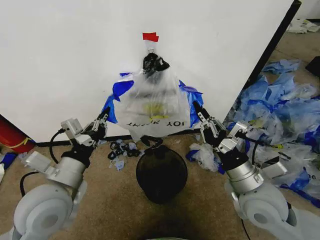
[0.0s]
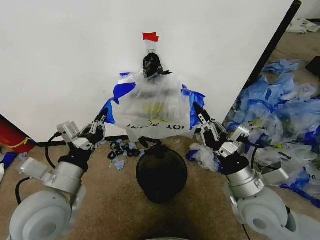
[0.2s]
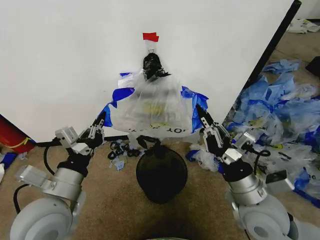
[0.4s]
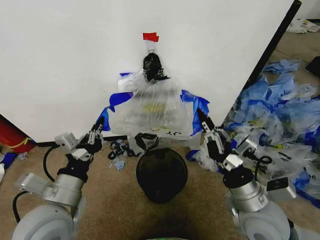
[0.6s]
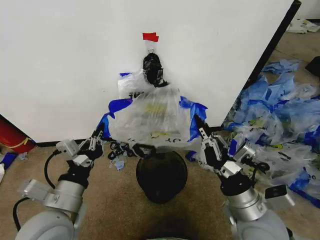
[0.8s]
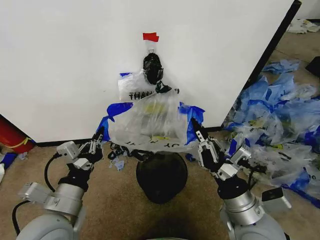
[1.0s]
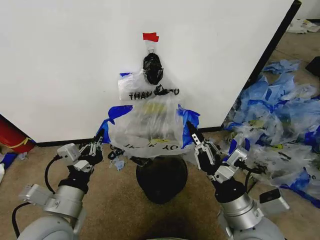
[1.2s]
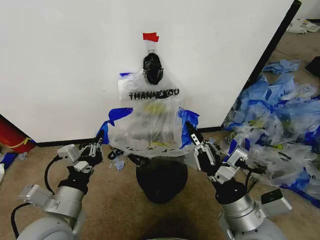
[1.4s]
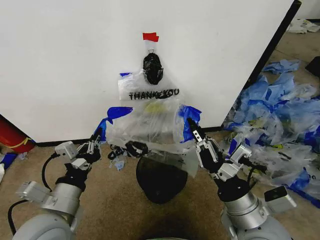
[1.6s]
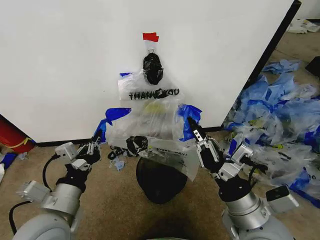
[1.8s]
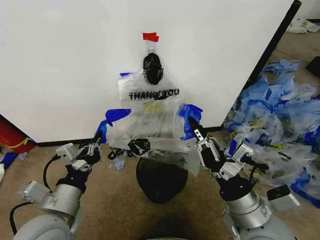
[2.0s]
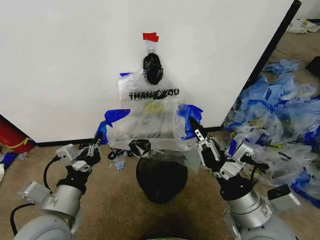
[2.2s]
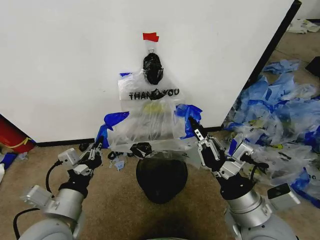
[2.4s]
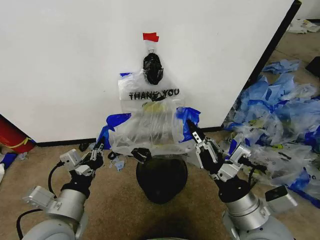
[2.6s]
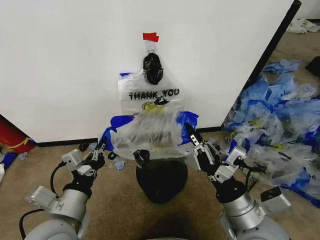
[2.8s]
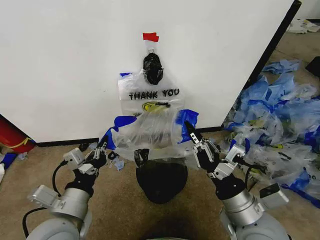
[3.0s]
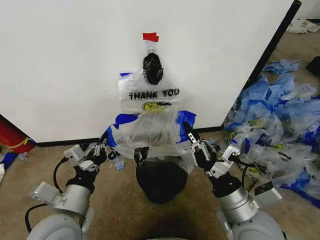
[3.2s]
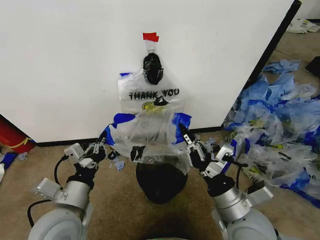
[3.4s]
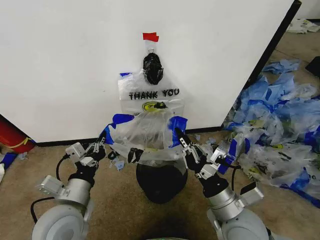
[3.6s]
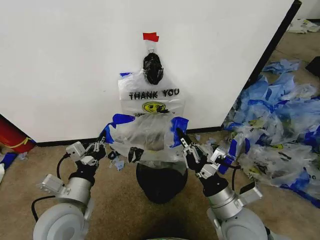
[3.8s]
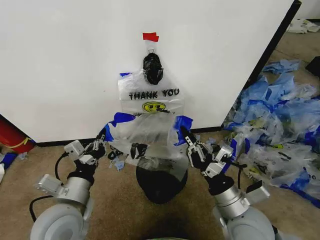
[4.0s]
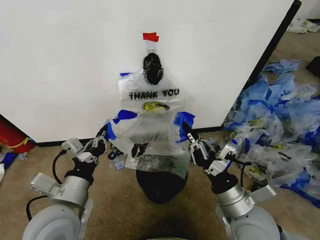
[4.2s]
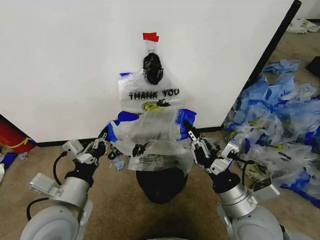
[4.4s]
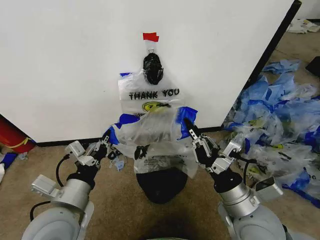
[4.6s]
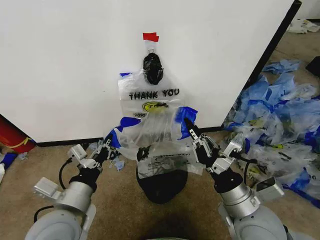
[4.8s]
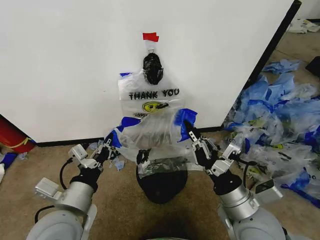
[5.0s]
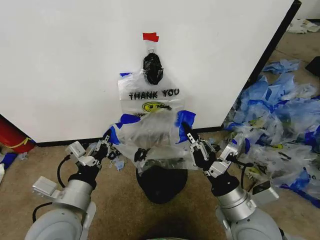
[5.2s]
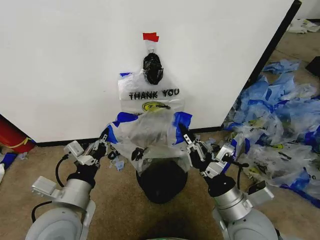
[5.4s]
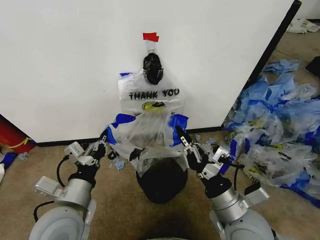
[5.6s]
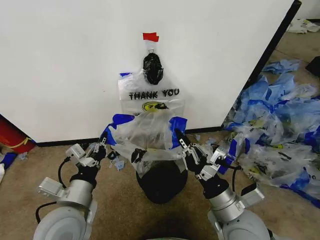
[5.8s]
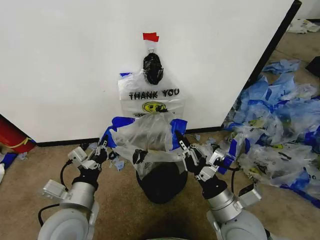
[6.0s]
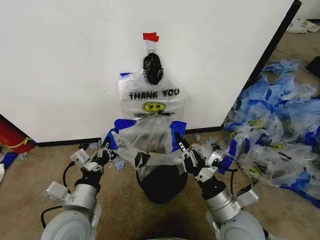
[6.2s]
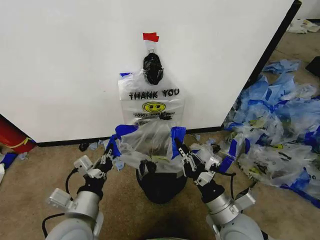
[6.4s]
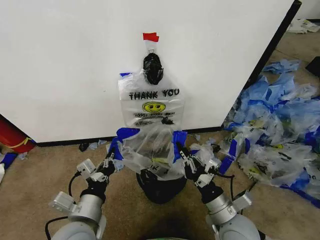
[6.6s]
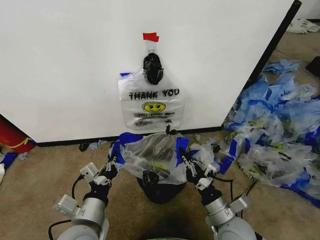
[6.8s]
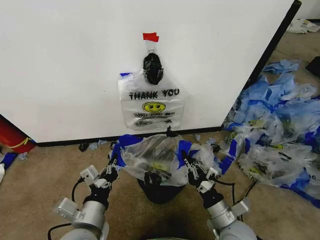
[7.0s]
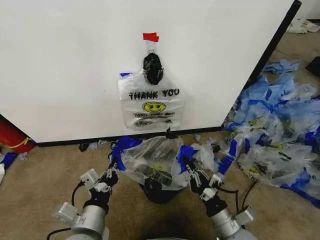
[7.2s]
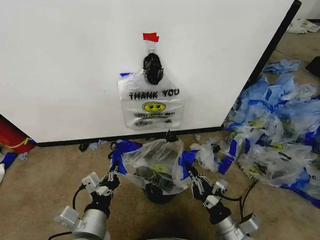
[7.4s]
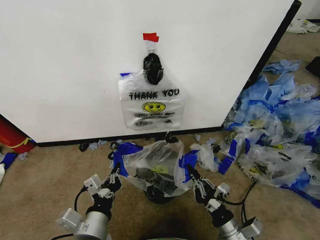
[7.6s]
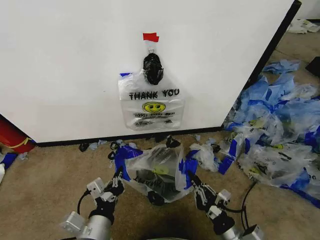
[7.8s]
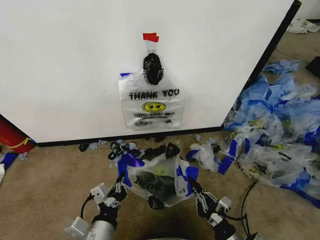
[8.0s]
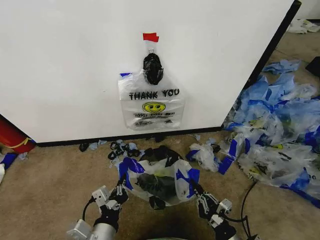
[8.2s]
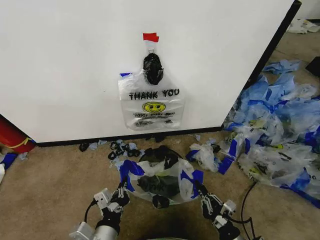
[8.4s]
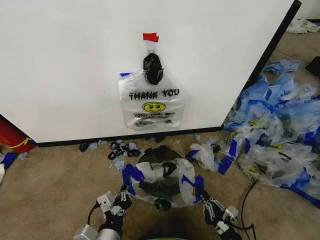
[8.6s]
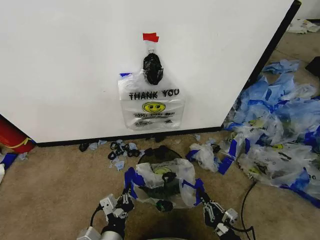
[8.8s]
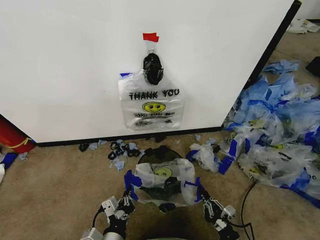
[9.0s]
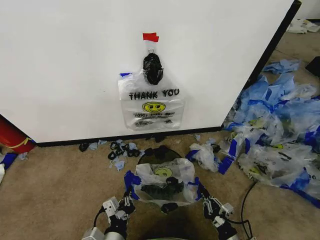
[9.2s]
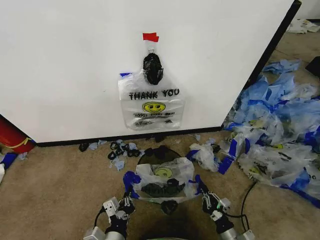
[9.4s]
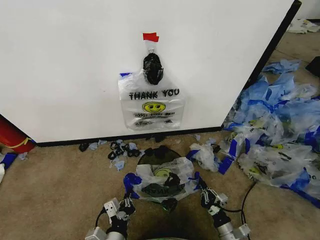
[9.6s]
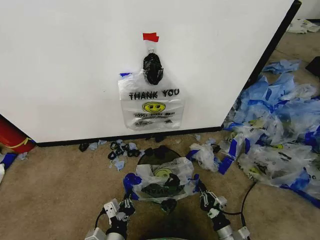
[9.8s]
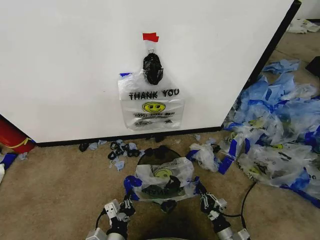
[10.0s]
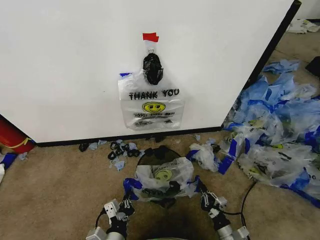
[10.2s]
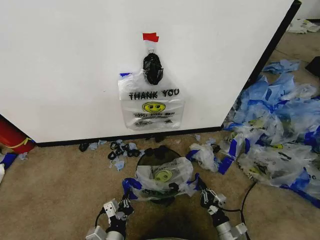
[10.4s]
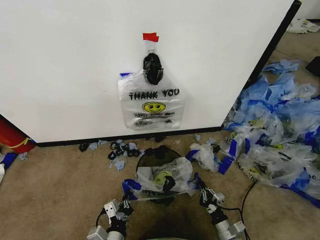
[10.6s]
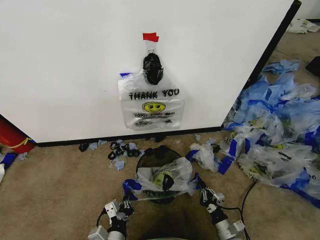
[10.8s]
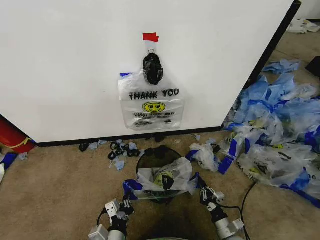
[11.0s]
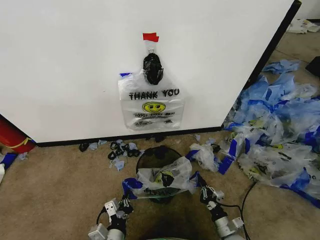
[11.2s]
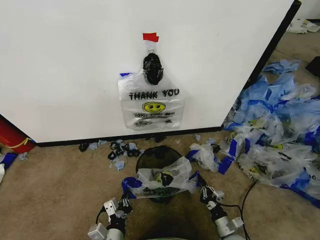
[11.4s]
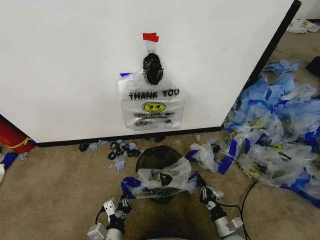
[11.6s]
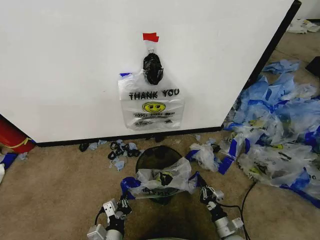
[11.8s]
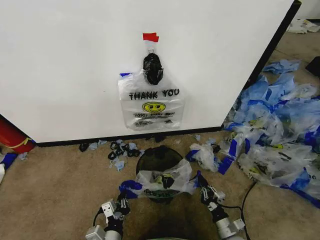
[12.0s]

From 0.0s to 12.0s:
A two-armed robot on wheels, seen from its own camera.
Task of the whole recording: Pick up the garbage bag from the wall and place it over the trash bin.
From 0.0s to 1.6s: The left gripper moves some 5 cm, while the right gripper goes some 5 cm backward.
From 1.6s to 4.4s: There are only small adjustments of the grippers.
From 4.4s to 6.0s: The grippers stay close to where they were, moving slightly.
From 6.0s to 7.6s: The left gripper moves backward, approximately 5 cm; the right gripper moves downward, some 10 cm.
From 7.6s to 9.0s: The grippers both shift downward by approximately 10 cm.
From 9.0s to 10.4s: The right gripper shifts approximately 10 cm forward and downward.
From 10.4s to 12.0s: The grippers move only a little.

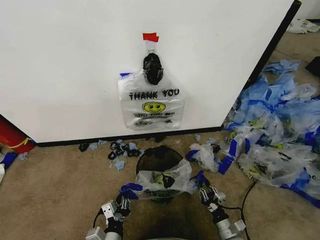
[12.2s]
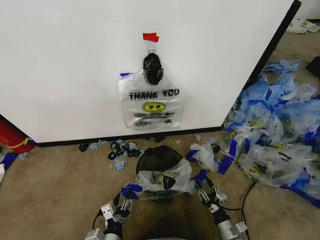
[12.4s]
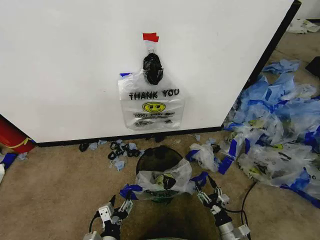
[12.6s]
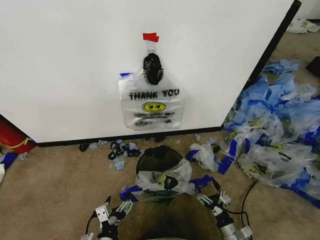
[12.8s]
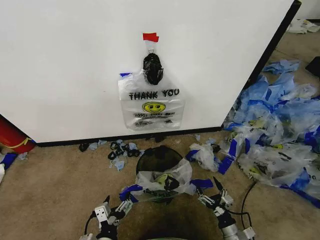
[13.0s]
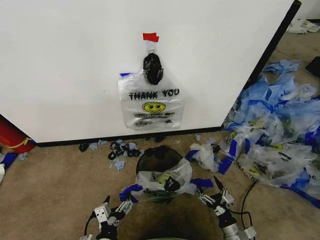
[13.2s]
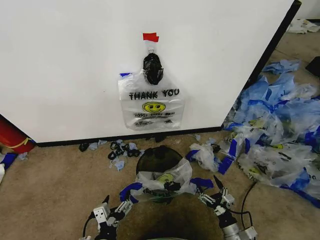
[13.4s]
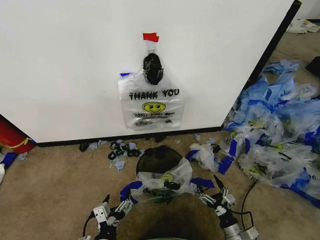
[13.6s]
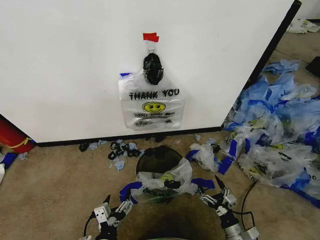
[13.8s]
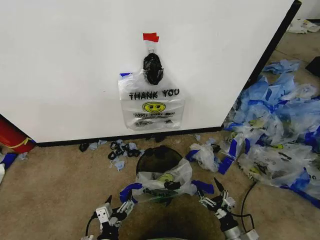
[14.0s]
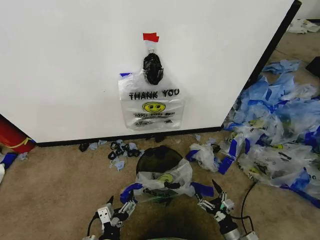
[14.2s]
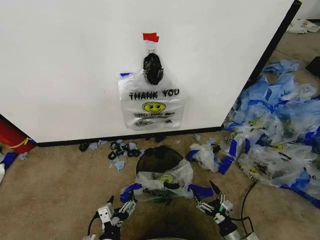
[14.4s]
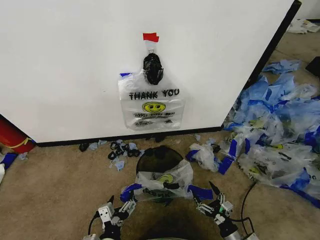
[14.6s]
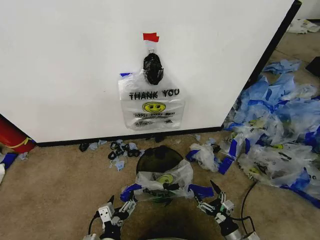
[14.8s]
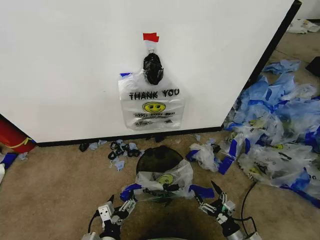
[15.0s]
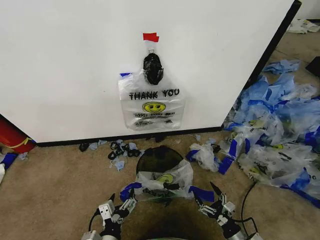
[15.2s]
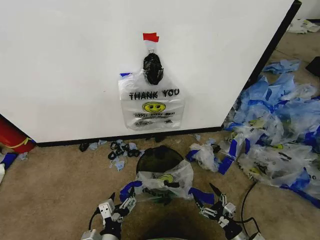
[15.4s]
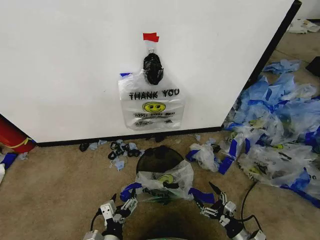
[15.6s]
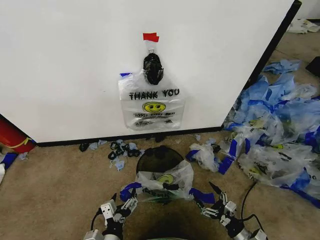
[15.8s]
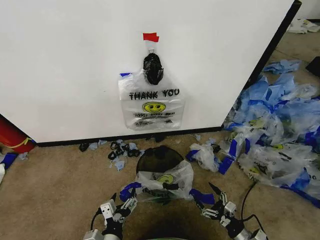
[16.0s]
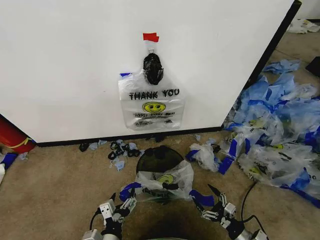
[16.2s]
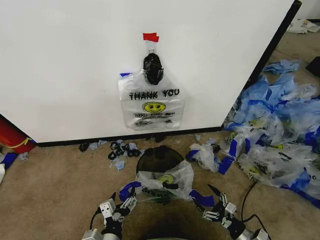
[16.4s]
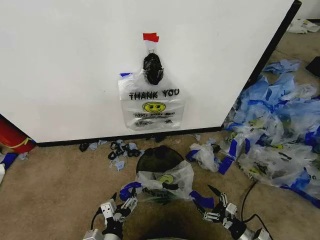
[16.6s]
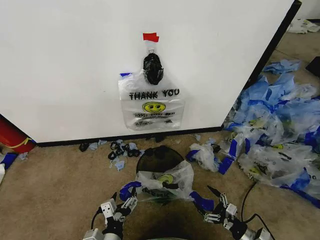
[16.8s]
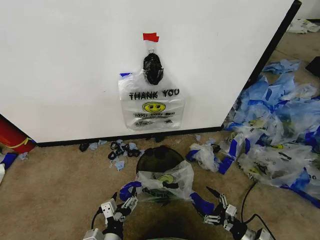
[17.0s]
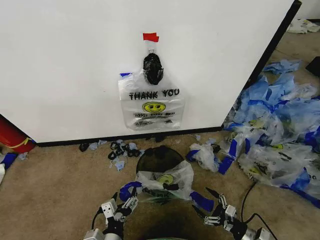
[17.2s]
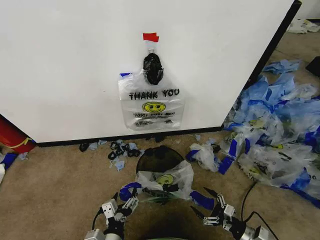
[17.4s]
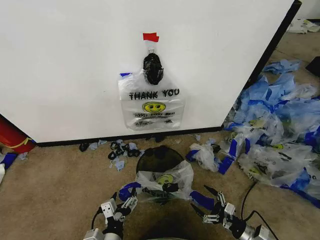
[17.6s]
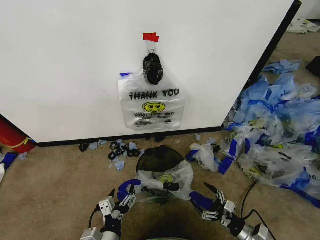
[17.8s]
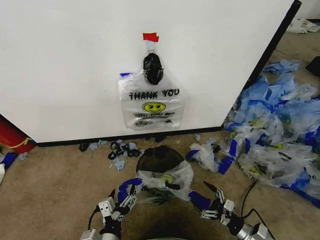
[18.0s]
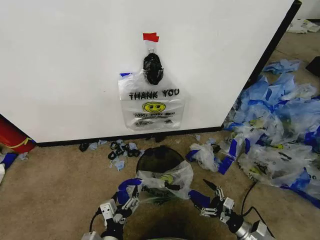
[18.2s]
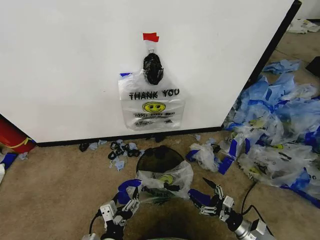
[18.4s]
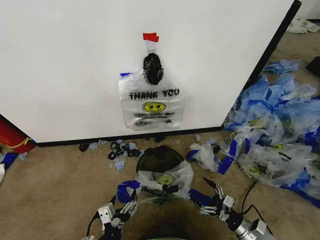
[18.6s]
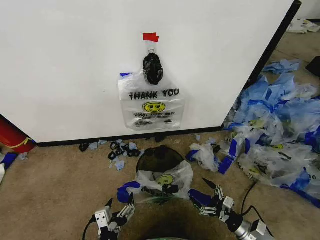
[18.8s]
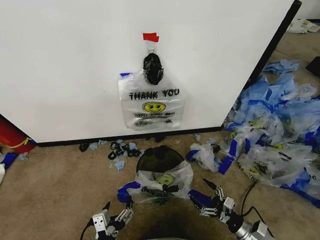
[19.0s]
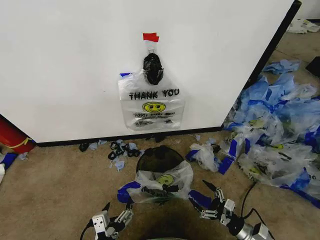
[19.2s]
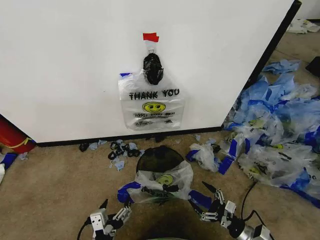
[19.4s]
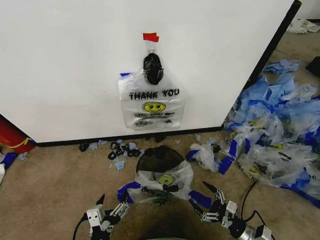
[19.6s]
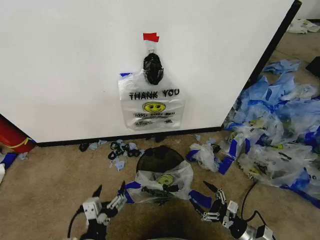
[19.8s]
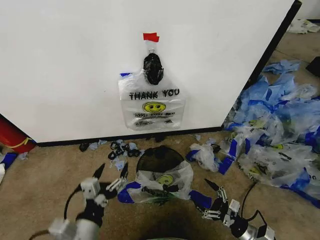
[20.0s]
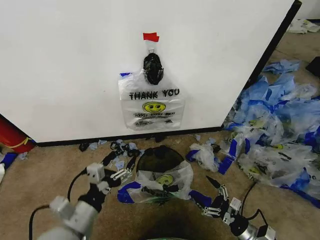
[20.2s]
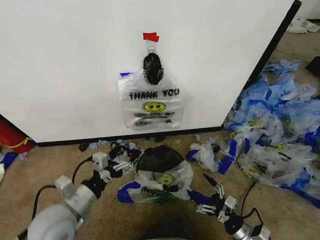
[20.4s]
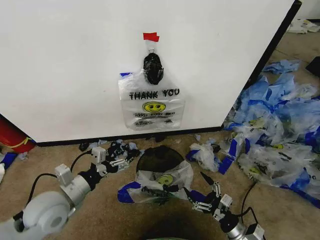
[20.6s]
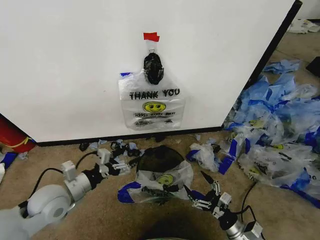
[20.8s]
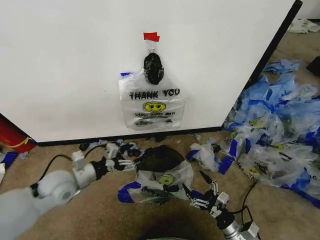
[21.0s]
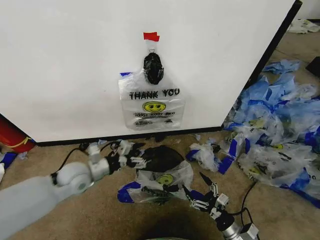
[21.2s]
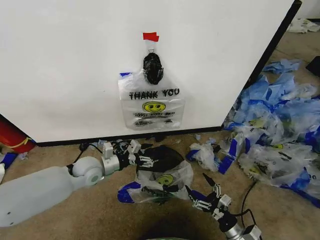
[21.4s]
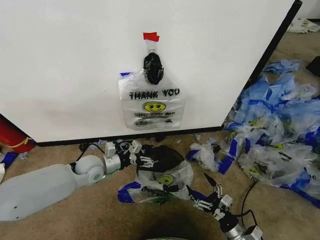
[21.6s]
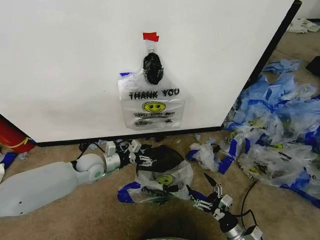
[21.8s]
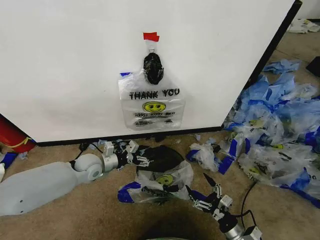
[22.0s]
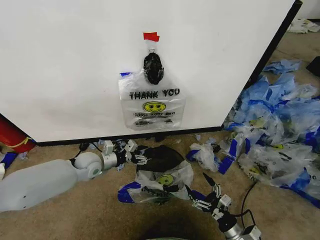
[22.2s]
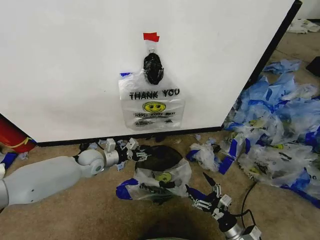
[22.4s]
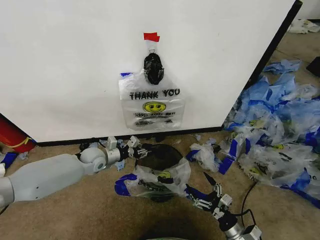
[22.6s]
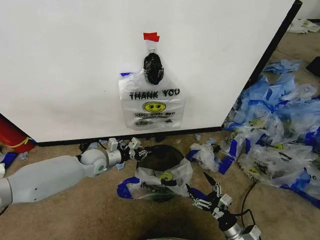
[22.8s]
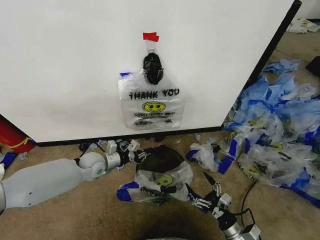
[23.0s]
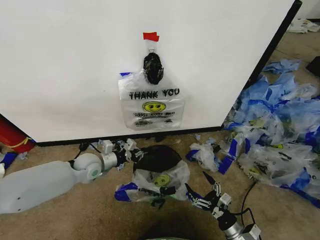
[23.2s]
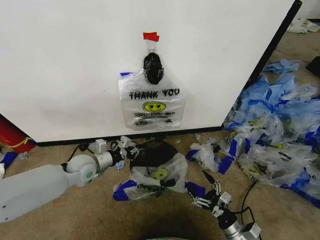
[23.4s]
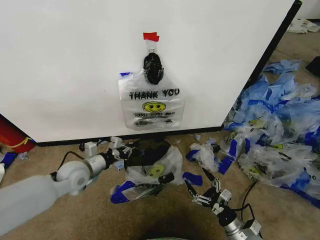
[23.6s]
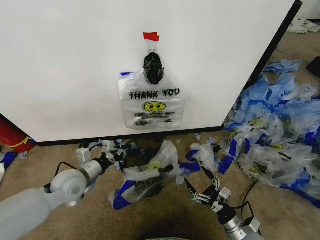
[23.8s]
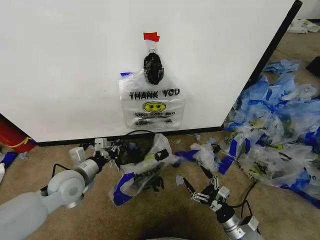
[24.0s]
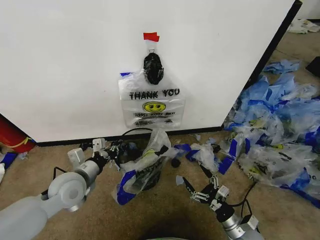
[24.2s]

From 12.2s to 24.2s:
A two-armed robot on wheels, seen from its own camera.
Task of the whole recording: Pick up the garbage bag from the wall and place it over the trash bin.
From 12.2s to 13.8s: The left gripper opens its fingers, while the right gripper opens up.
From 13.8s to 15.2s: There are only small adjustments of the grippers.
From 15.2s to 16.6s: The right gripper ends up roughly 5 cm from where it was.
From 16.6s to 18.2s: There are only small adjustments of the grippers.
From 18.2s to 19.8s: The left gripper shifts by approximately 5 cm.
From 19.8s to 21.2s: The right gripper is displaced to the left by about 5 cm. Meanwhile the left gripper heads forward, covering about 30 cm.
From 21.2s to 22.6s: The left gripper shifts some 10 cm forward and downward, and closes its fingers.
From 22.6s to 24.2s: The left gripper moves backward and upward, some 15 cm.
